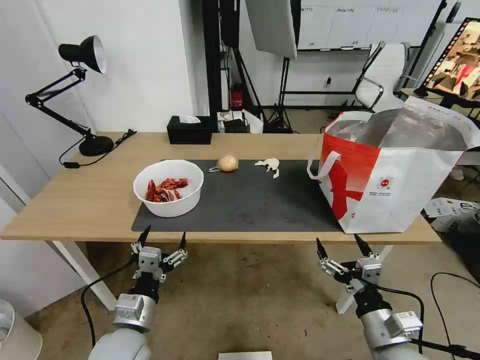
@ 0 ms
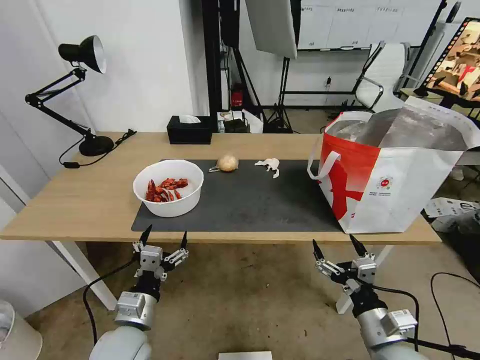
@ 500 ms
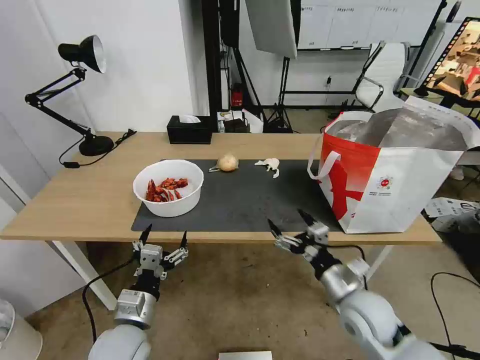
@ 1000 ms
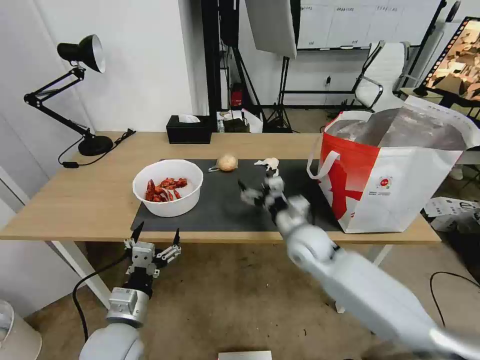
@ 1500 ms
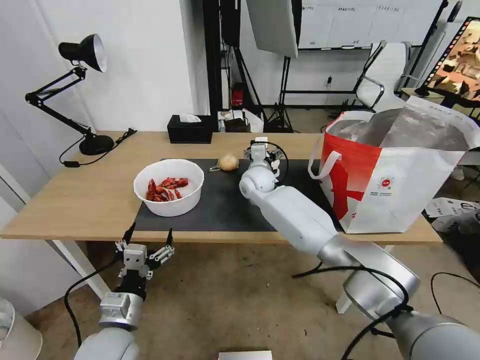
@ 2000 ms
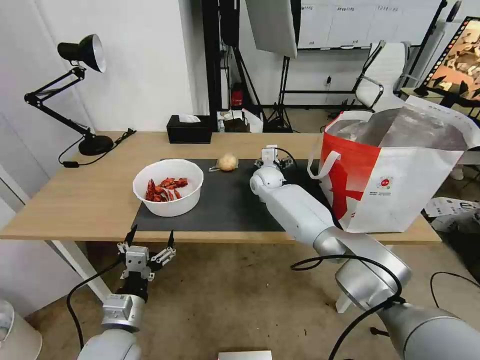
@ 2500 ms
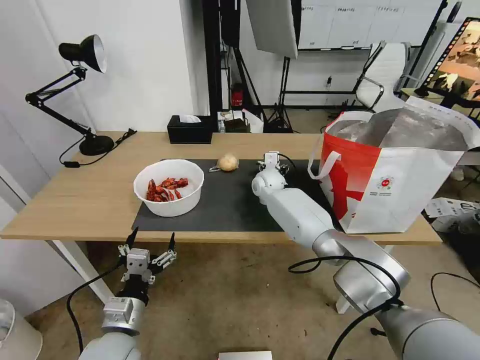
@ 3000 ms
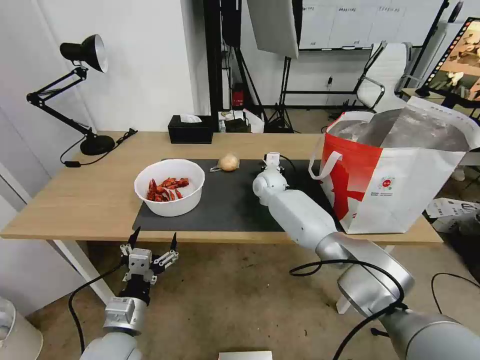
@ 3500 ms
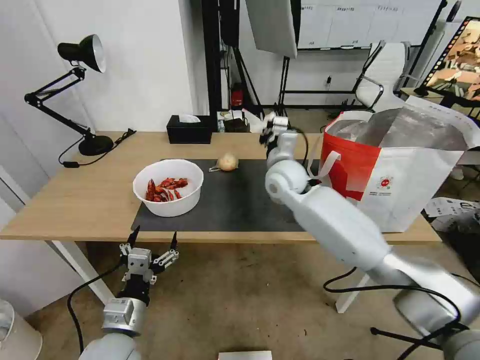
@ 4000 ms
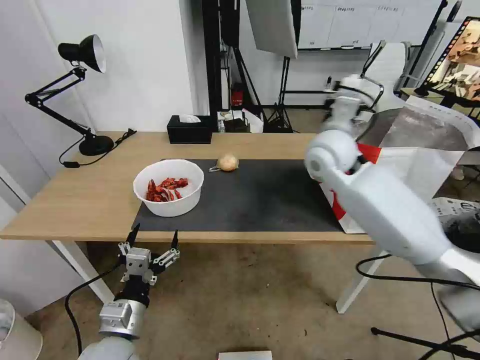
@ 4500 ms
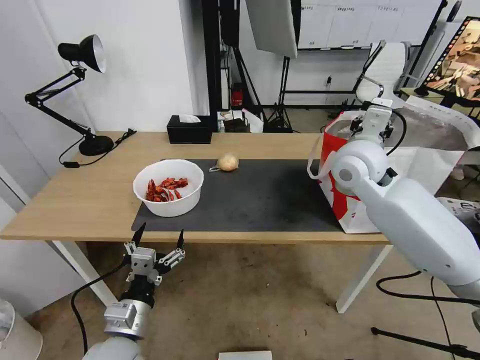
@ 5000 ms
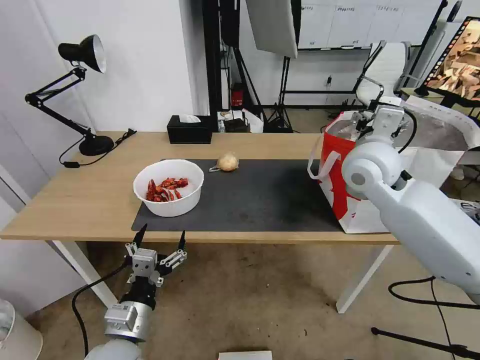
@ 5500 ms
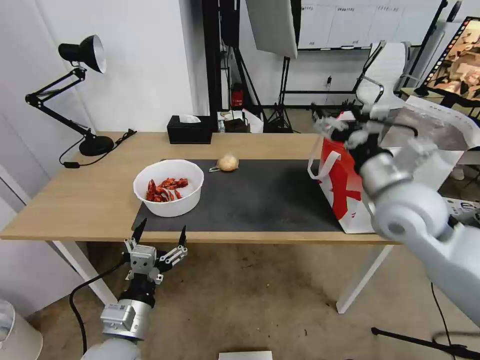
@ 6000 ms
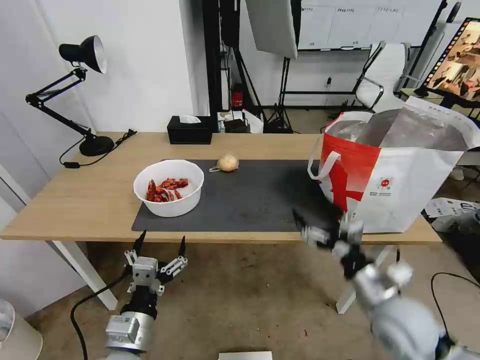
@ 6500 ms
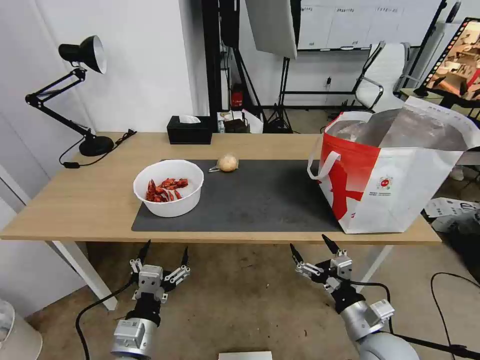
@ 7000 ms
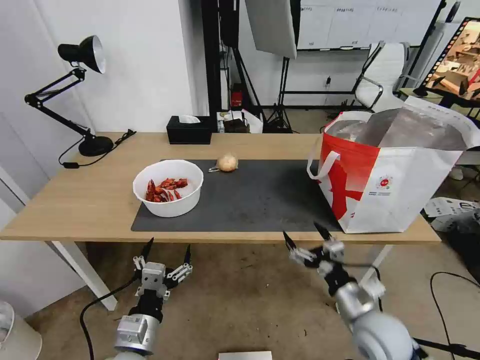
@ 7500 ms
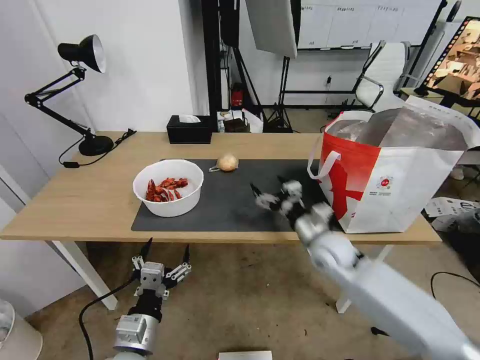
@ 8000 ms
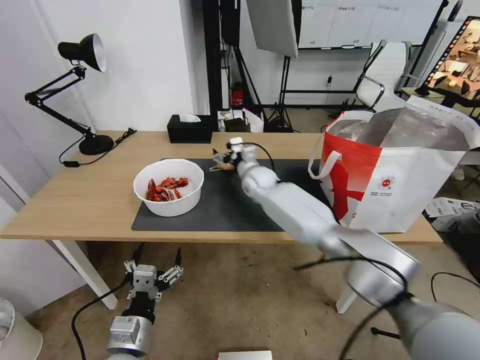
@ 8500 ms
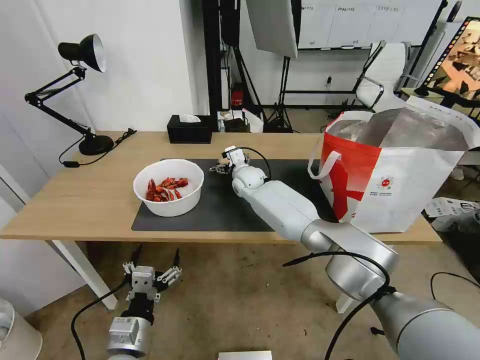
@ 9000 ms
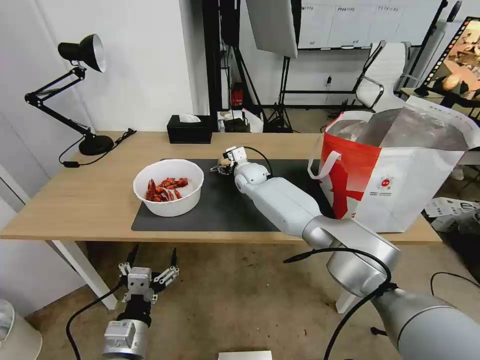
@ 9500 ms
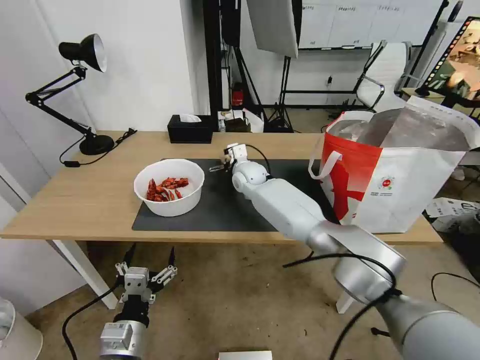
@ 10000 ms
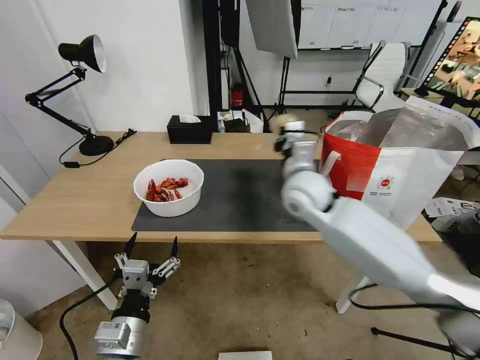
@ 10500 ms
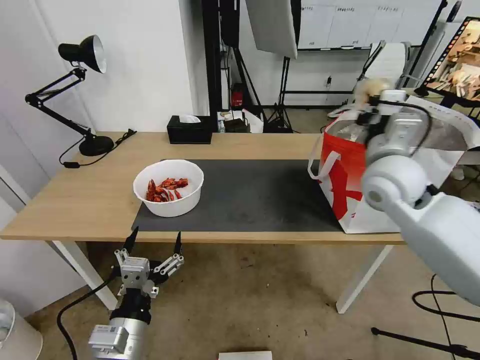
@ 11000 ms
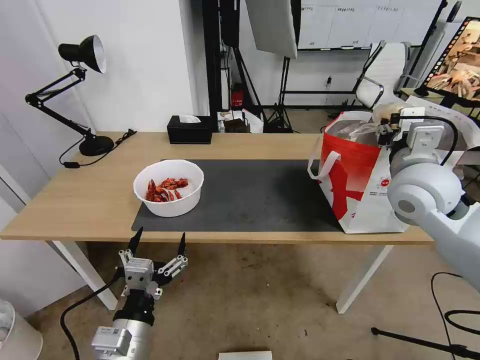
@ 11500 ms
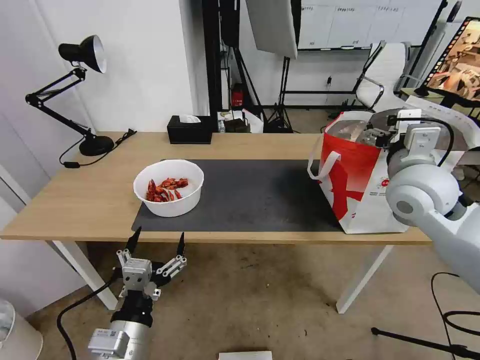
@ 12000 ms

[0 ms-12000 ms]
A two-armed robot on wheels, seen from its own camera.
Task of the whole recording: Pick up the trash from the table and place it into the takeout bag.
0 ms to 2000 ms: The right gripper moves forward and to the left, roughly 50 cm.
2000 ms to 4000 ms: The right gripper goes approximately 10 cm upward, to the right and backward, and closes.
4000 ms to 6000 ms: The right gripper goes about 25 cm to the right and backward, and opens up.
6000 ms to 8000 ms: The right gripper travels downward by roughly 20 cm.
8000 ms to 10000 ms: The right gripper is displaced forward and to the left by roughly 25 cm, and closes.
10000 ms to 12000 ms: The left gripper travels upward by about 5 cm, while the right gripper heads to the right, backward and upward, covering approximately 40 cm, and opens up.

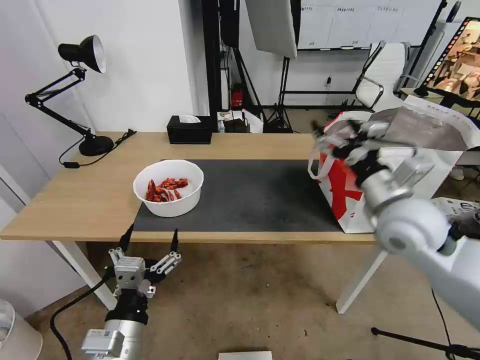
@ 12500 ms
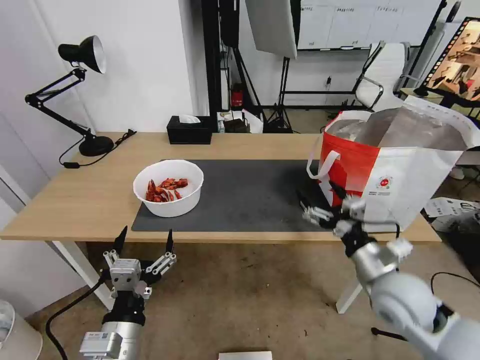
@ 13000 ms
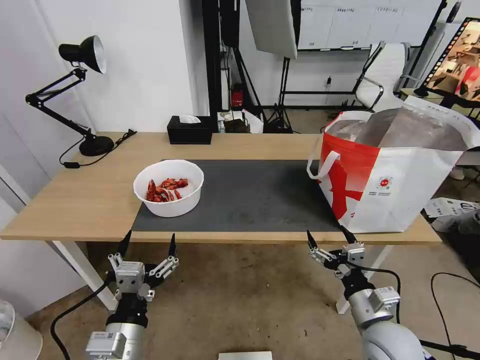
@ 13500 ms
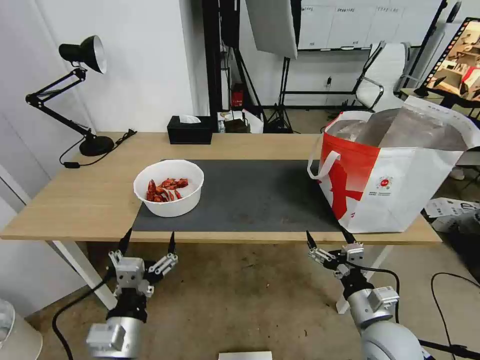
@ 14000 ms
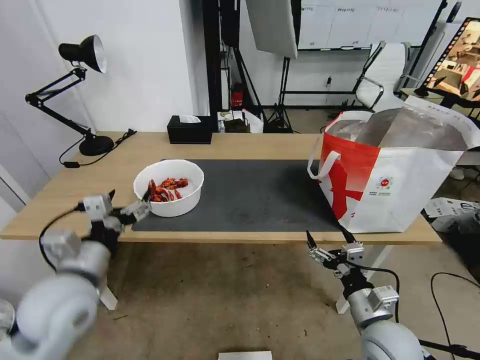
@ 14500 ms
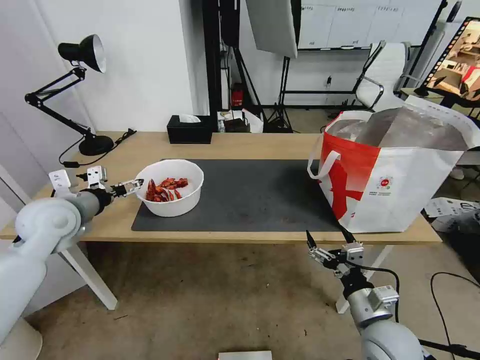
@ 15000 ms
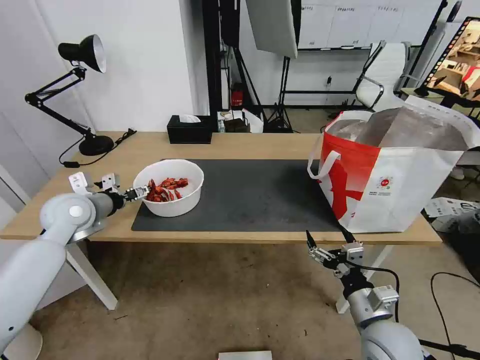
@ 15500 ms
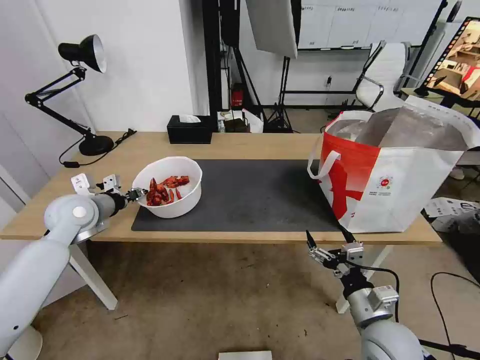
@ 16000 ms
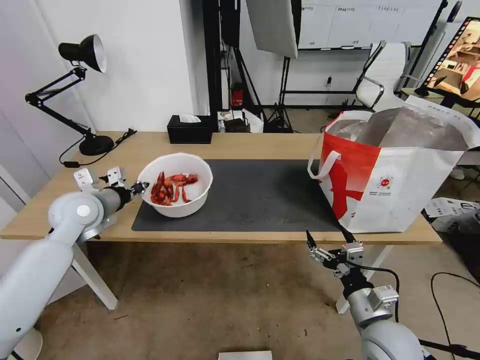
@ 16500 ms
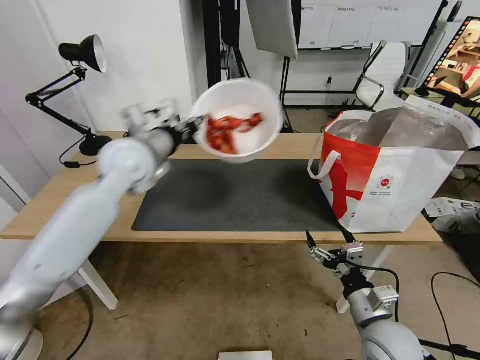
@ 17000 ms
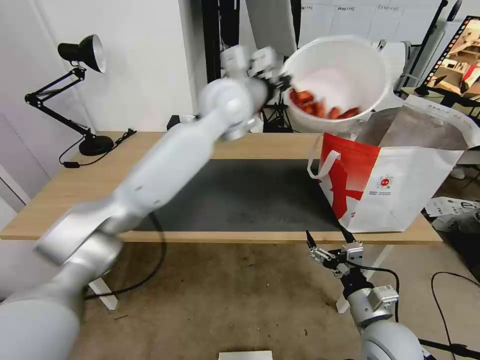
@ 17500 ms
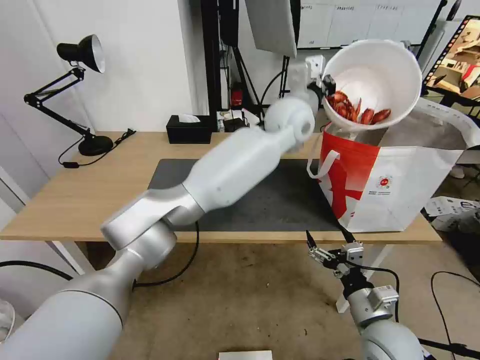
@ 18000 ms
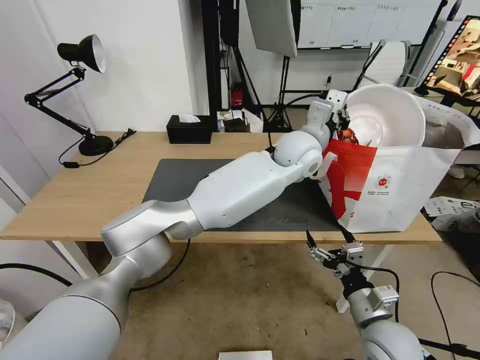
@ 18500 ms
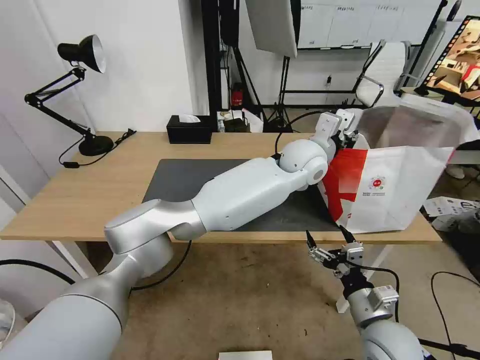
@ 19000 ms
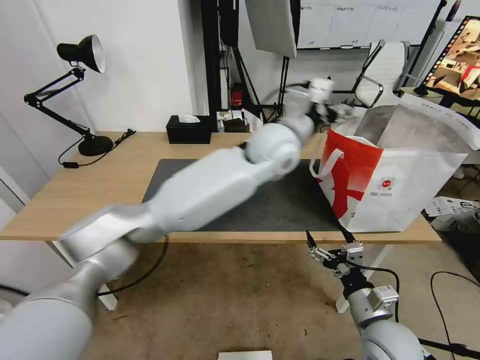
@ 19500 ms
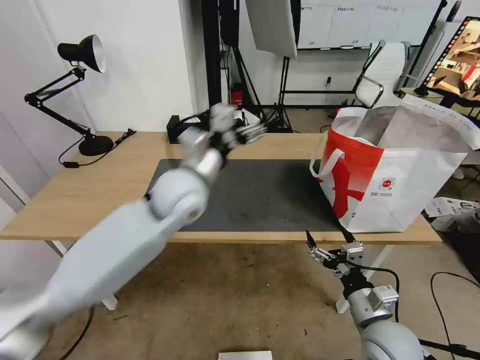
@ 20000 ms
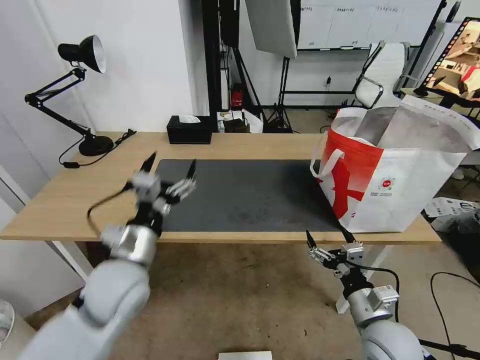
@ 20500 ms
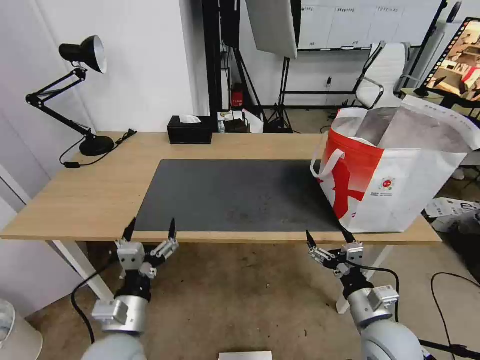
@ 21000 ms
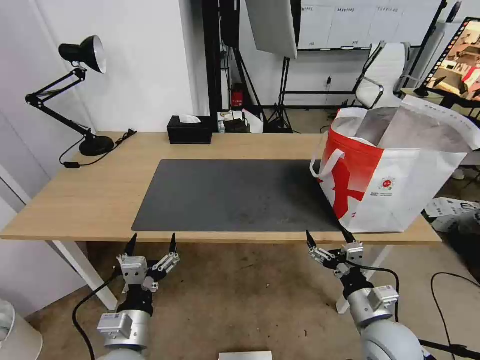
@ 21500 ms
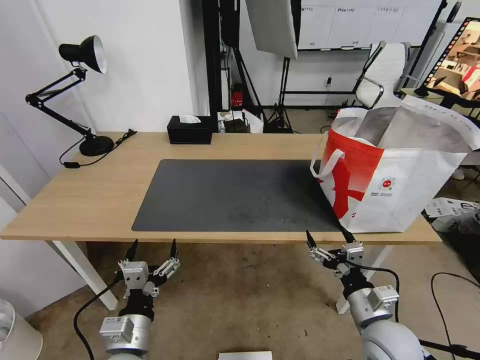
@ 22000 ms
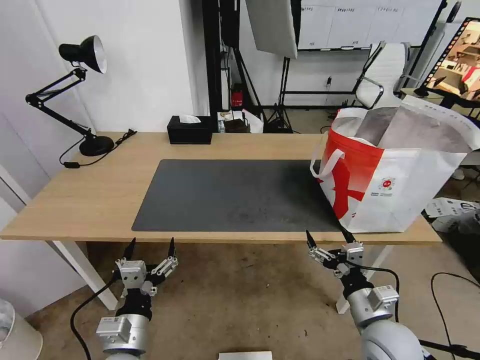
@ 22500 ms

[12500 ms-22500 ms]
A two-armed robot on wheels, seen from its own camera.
Task of the whole recording: Pick up the trash from the table and place it into the takeout bag.
12500 ms to 14500 ms: The left gripper travels forward, to the left and upward by about 15 cm. The right gripper goes approximately 25 cm downward and backward.
14500 ms to 16500 ms: The left gripper moves forward, some 20 cm, and closes its fingers.
16500 ms to 18500 ms: The left gripper moves to the right, some 50 cm.
18500 ms to 20500 ms: The left gripper goes some 40 cm to the left and backward, and opens its fingers.
20500 ms to 22500 ms: The left gripper goes about 15 cm backward and downward.
